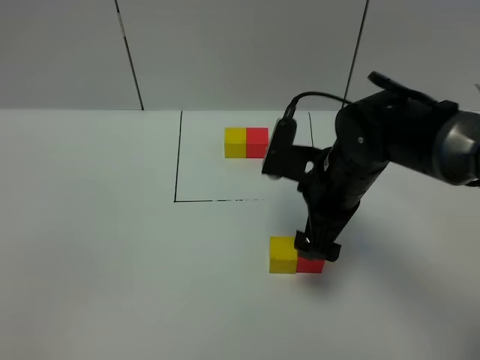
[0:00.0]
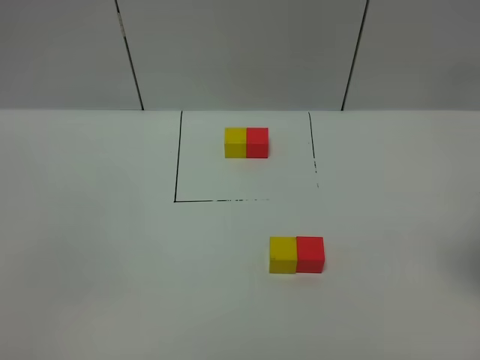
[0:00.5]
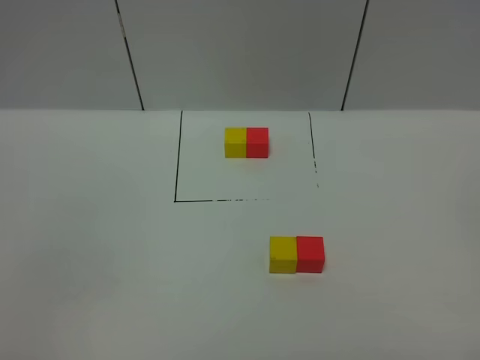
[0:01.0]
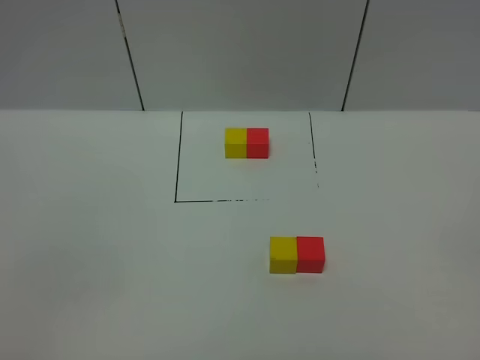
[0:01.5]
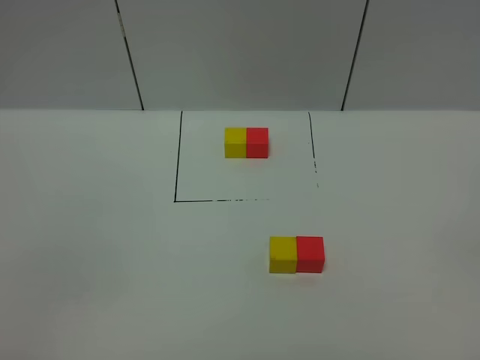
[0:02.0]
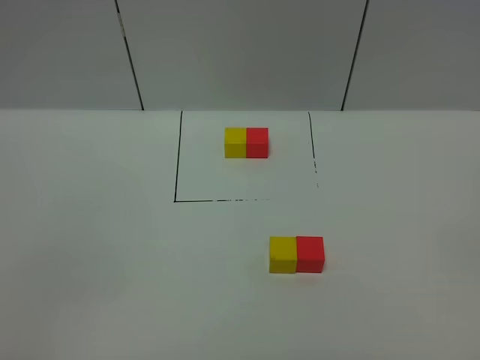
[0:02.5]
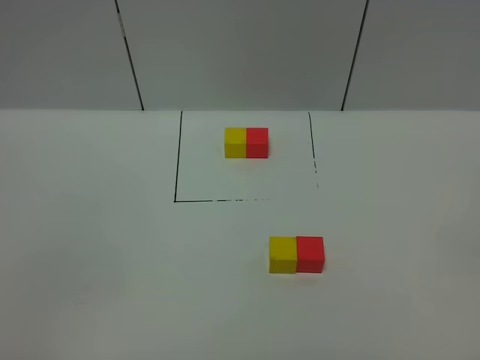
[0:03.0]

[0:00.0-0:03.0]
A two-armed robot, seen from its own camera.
Task of the whole recording: According to the building block template in front, assemble the scattered blocks together.
0:00.0 to 0:01.5: The right gripper moves backward and to the right, roughly 40 cm.

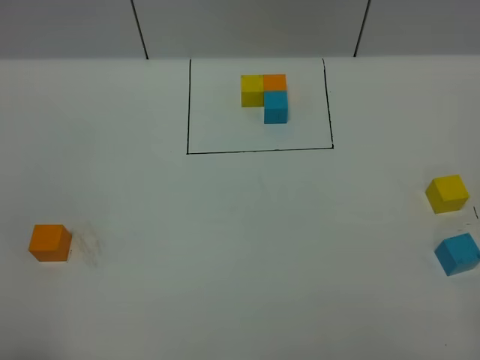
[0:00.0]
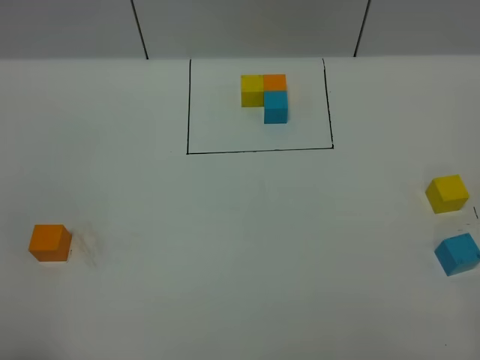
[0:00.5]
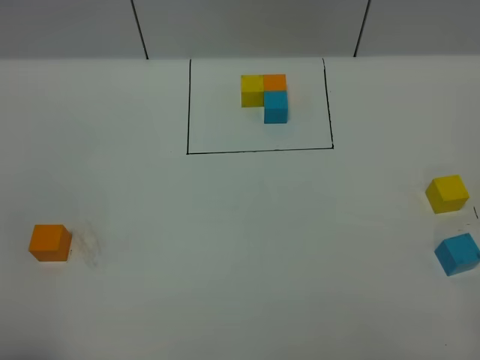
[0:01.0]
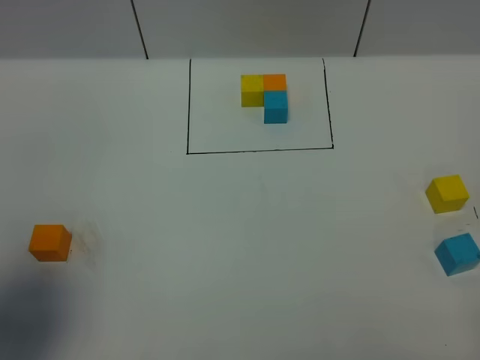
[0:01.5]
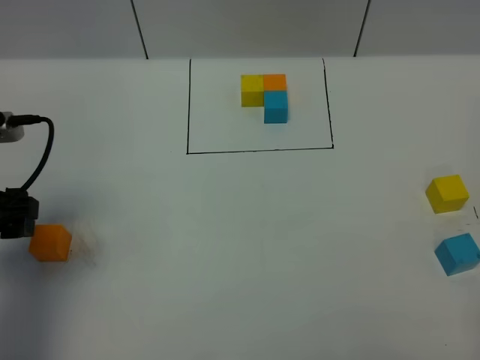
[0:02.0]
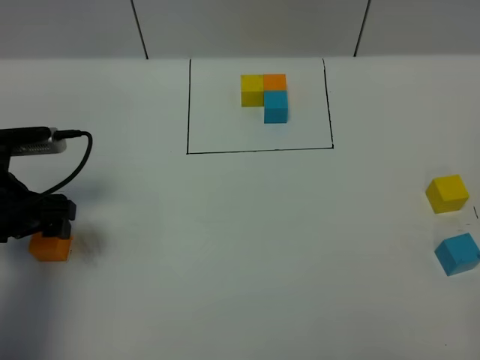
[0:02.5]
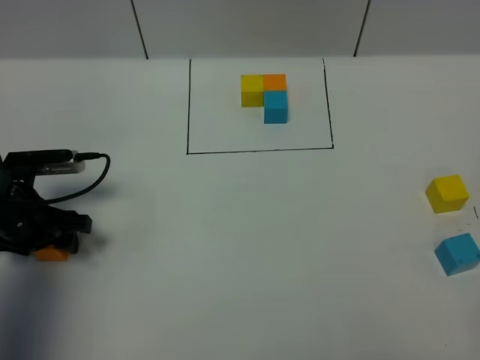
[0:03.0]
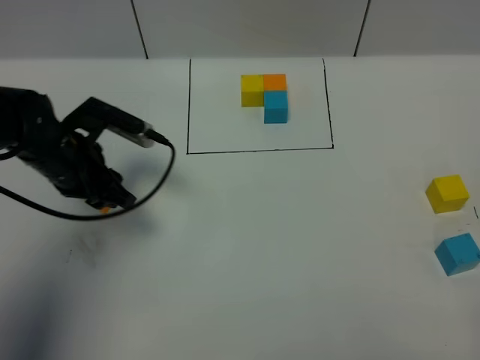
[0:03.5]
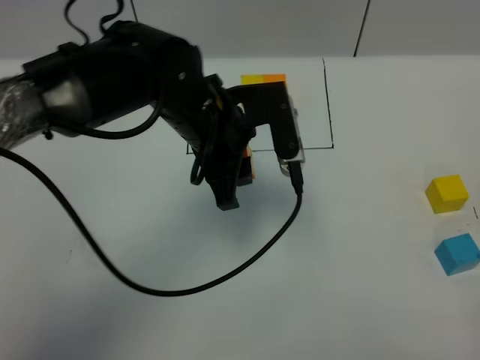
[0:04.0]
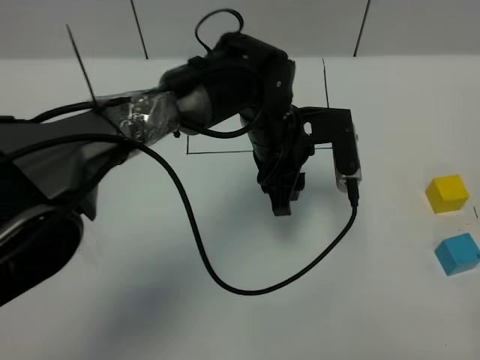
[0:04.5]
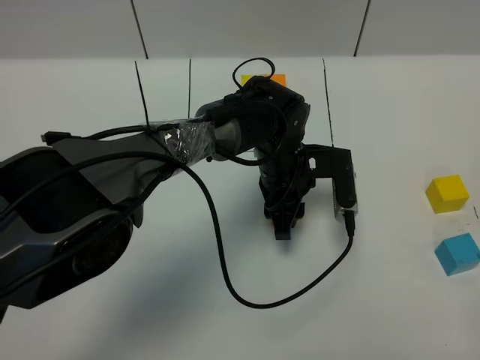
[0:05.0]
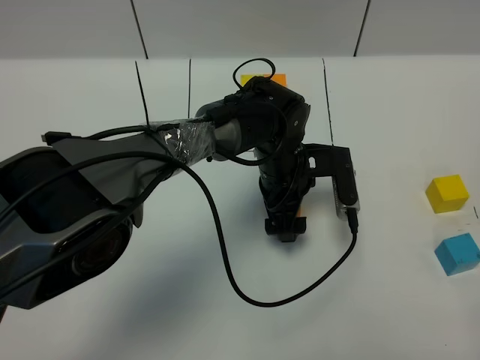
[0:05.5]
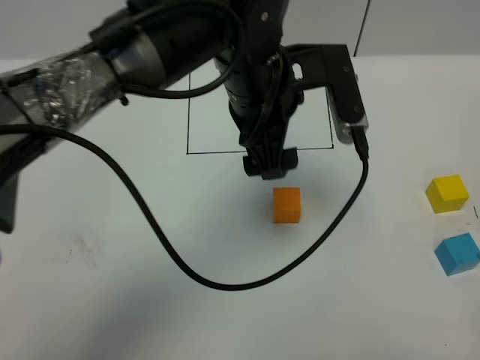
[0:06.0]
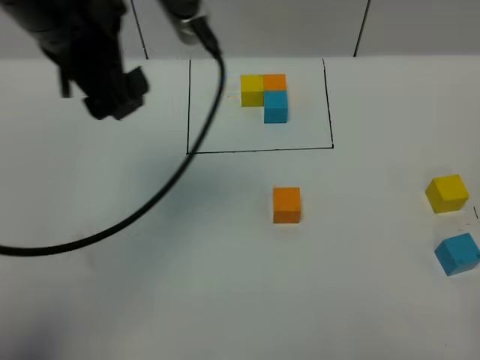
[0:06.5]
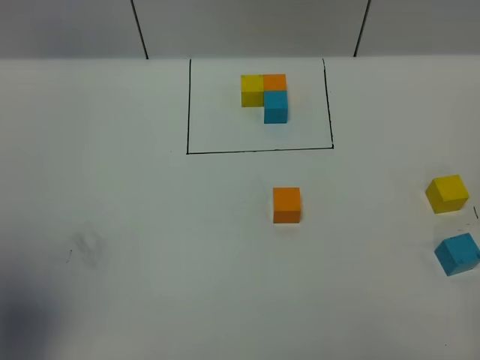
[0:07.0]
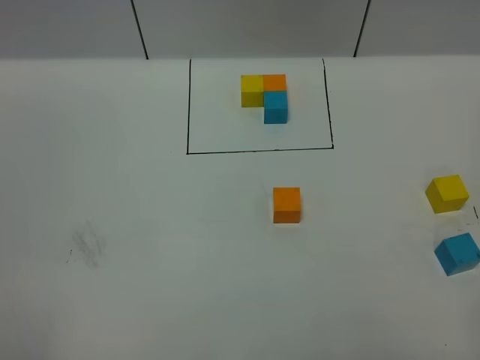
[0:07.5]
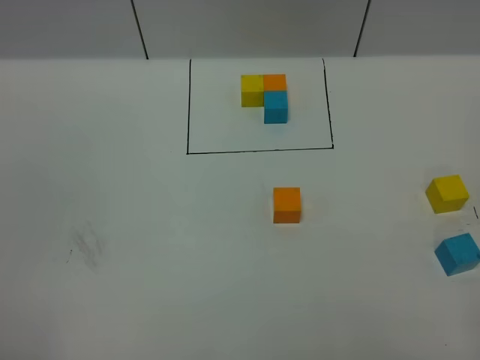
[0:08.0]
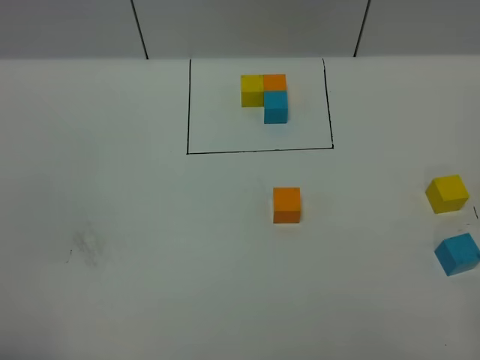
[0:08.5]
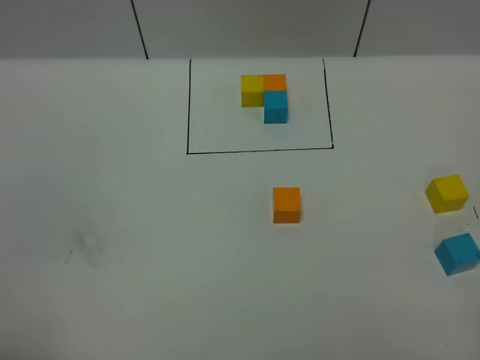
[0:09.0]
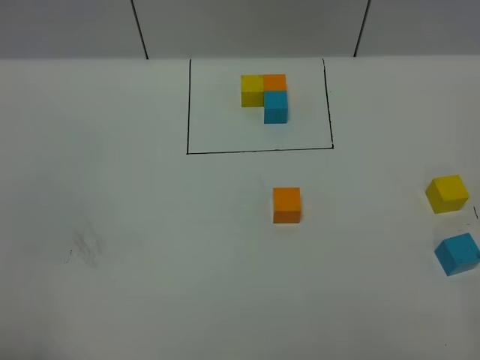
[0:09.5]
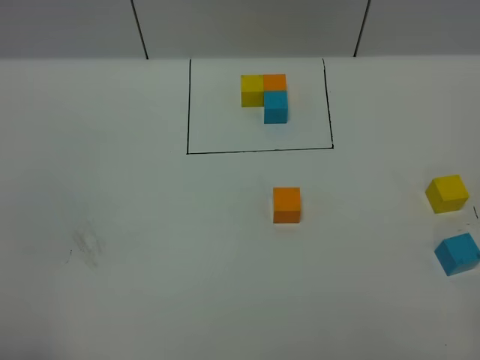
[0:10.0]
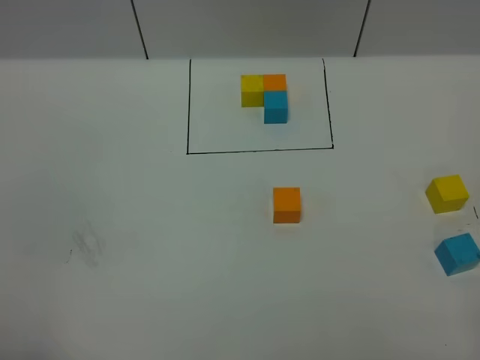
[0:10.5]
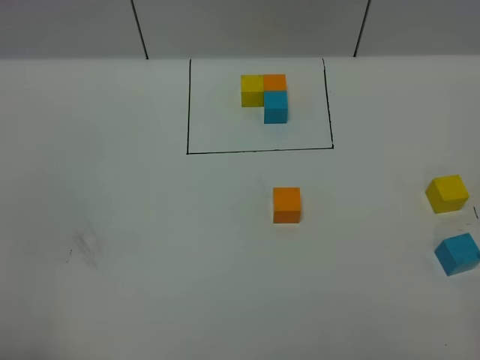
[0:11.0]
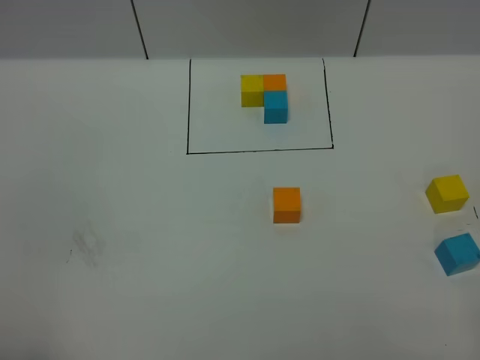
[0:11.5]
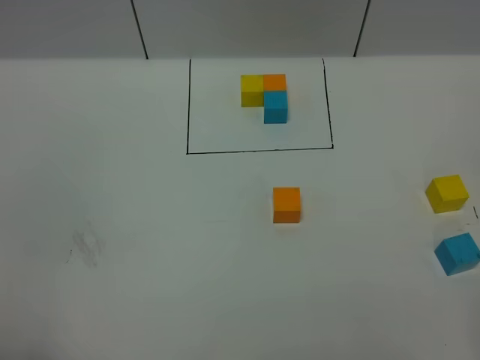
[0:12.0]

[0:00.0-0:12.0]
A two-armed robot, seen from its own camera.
Task of the whole recording: According to the building block template in front, assemble the scattered blocks together.
Step, 0:01.5 to 0:05.5: Put the orange cube in the center of the table.
0:00.0 to 0:02.0: The left gripper moves forward, approximately 25 cm.
0:02.0 to 0:04.0: The left gripper is displaced to the right by approximately 25 cm, and closes its fingers.
0:04.0 to 0:06.0: The left gripper travels downward and back again, roughly 10 cm each way, and opens.
0:06.0 to 0:08.0: The left gripper travels backward and to the left by roughly 50 cm.

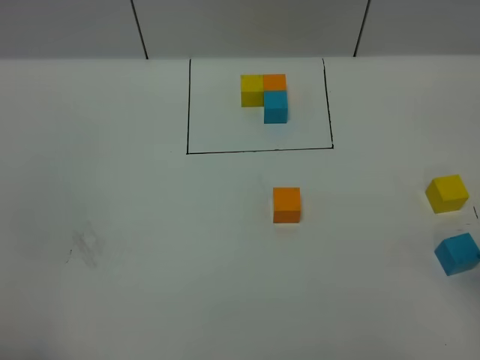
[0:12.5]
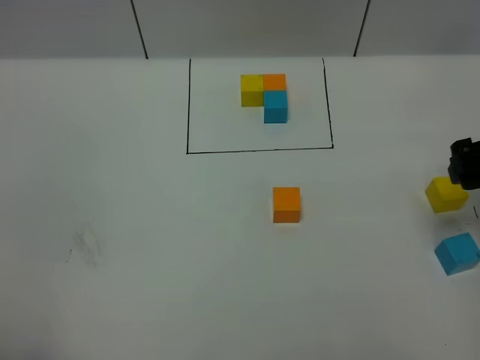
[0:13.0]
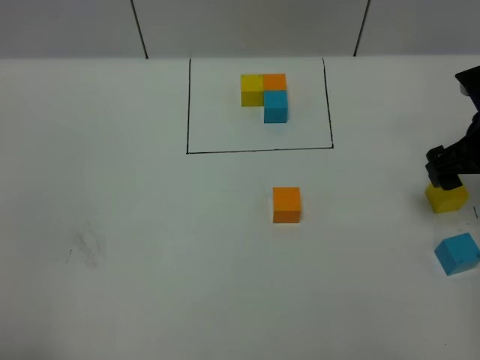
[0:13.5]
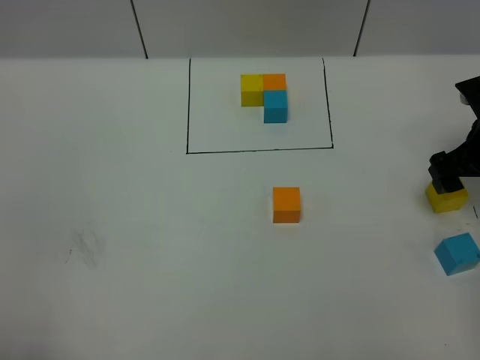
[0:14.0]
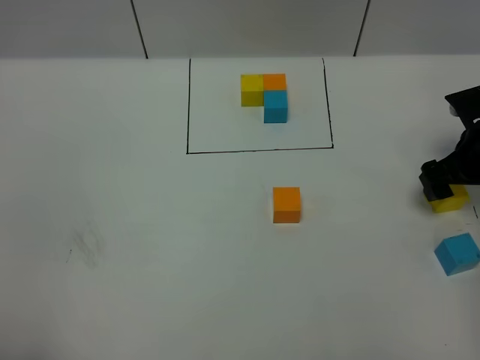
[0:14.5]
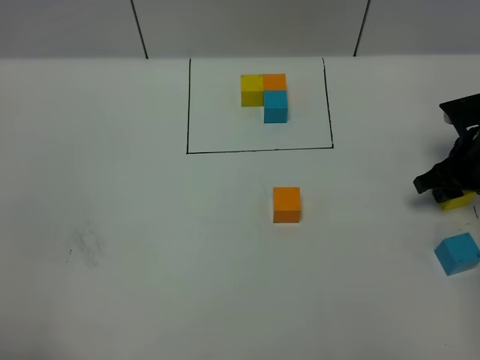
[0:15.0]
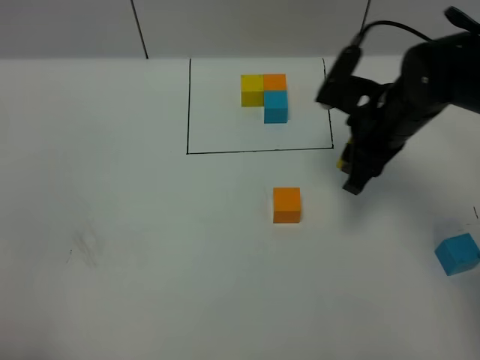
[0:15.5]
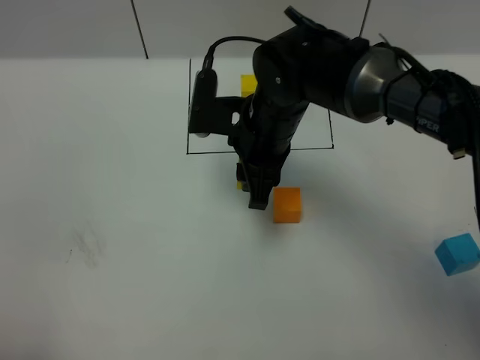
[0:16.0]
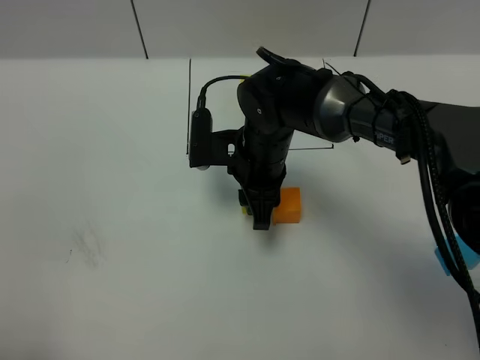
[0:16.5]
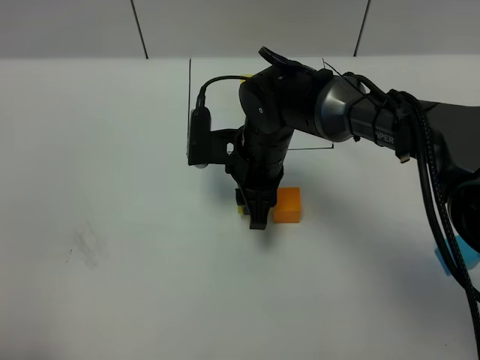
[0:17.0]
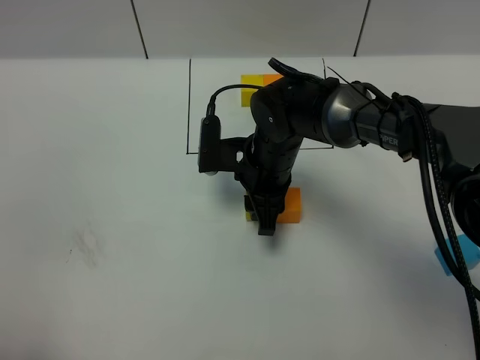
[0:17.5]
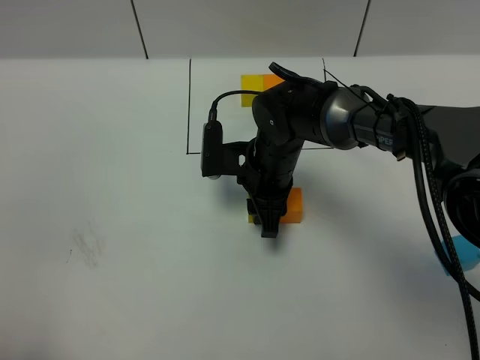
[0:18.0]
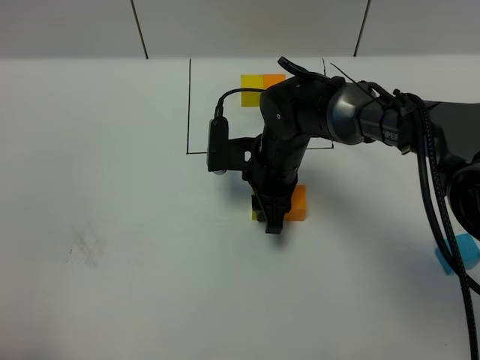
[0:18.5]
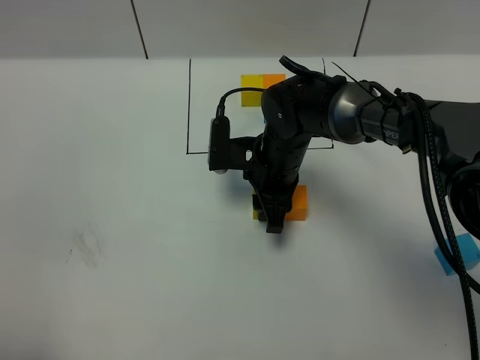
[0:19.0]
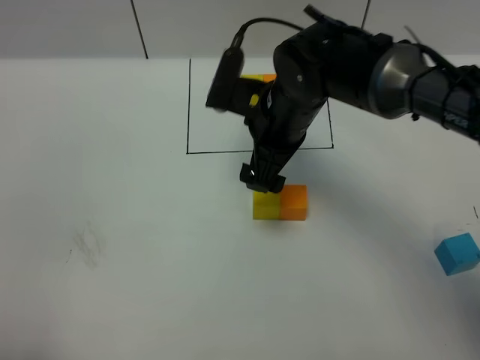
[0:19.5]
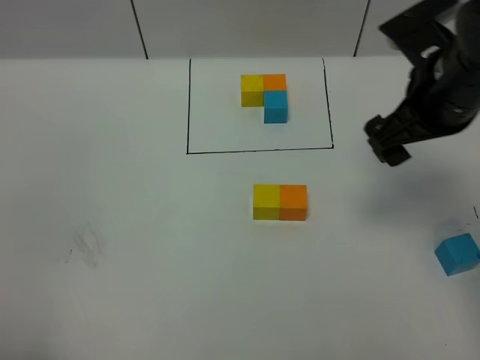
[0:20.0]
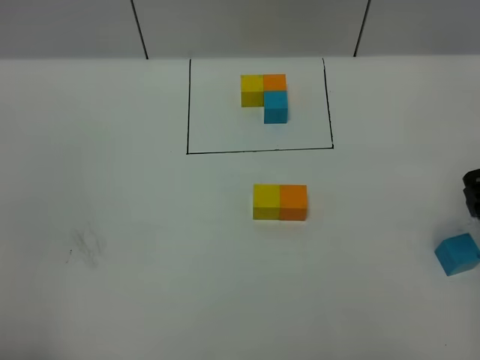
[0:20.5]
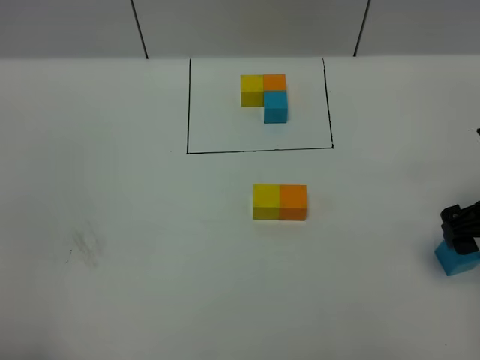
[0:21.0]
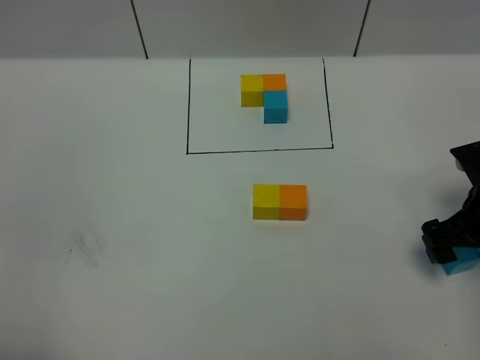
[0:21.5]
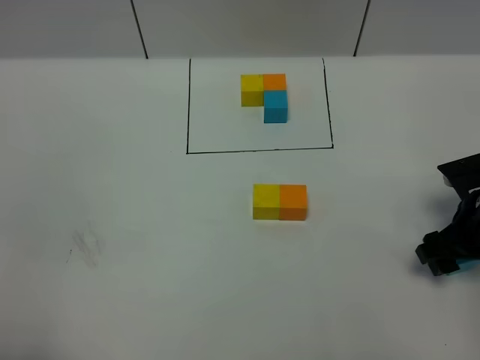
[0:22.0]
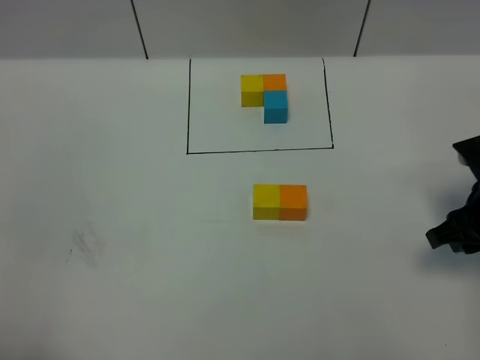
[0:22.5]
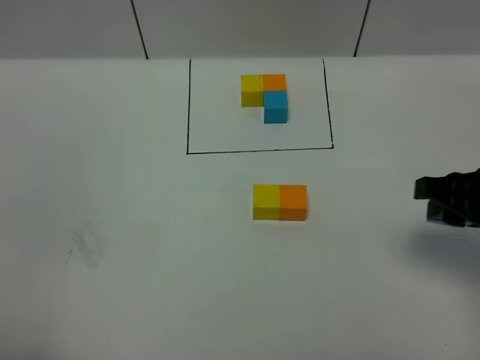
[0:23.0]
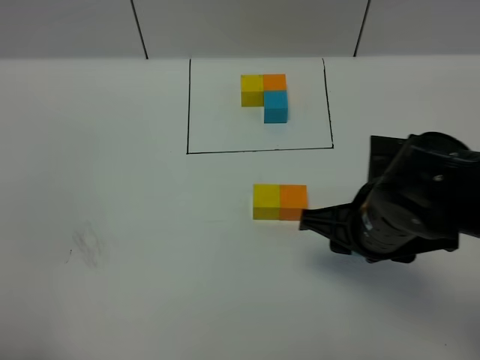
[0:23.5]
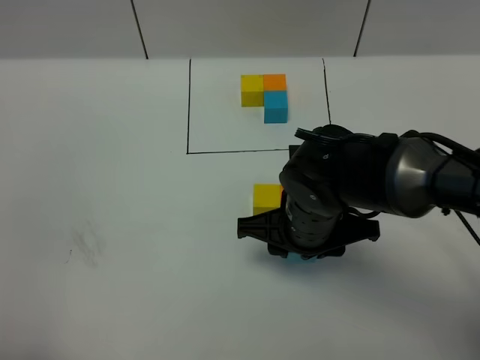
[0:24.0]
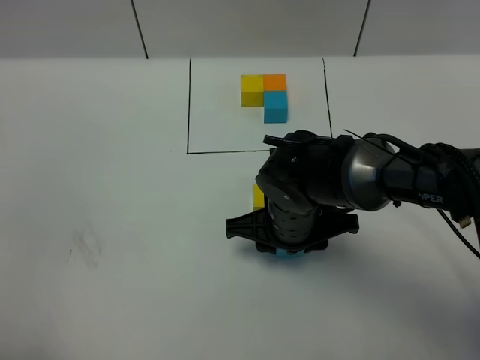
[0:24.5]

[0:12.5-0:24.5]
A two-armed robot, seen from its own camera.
Task of the whole recording: According to the building block template in front, assemble the scattered blocks together.
0:12.5 to 0:14.5: The right gripper shifts approximately 25 cm forward and downward.
0:14.5 to 0:16.5: The right gripper heads to the left, covering approximately 30 cm, and closes its fingers.
0:16.5 to 0:18.5: The grippers make only small movements.
0:18.5 to 0:20.5: The right gripper shifts some 30 cm to the right, upward and backward, and opens.
0:20.5 to 0:22.5: The right gripper travels downward by some 10 cm, and closes.
0:22.5 to 0:24.5: The right gripper goes approximately 25 cm to the left.
